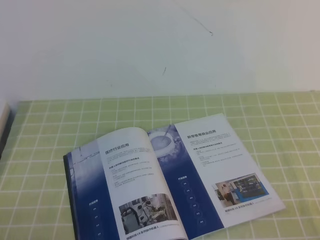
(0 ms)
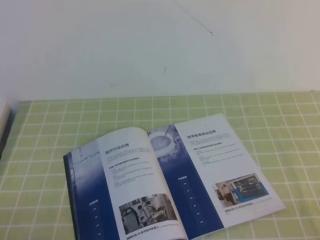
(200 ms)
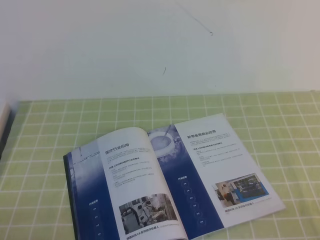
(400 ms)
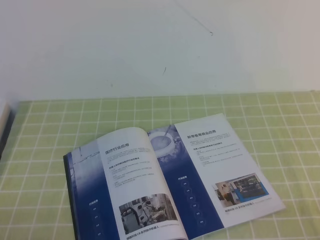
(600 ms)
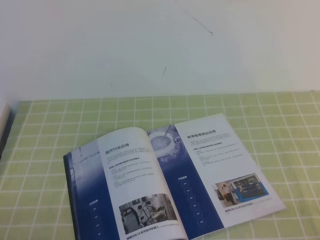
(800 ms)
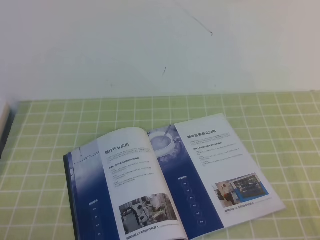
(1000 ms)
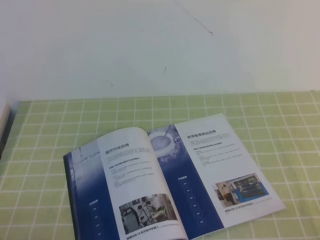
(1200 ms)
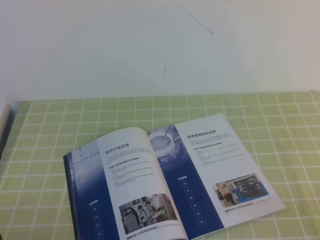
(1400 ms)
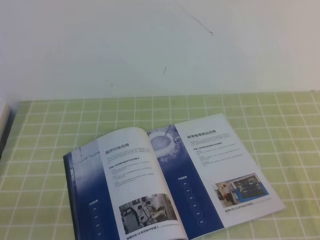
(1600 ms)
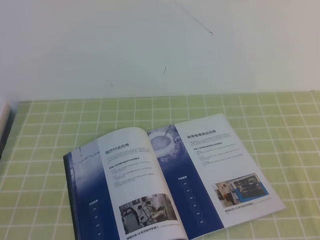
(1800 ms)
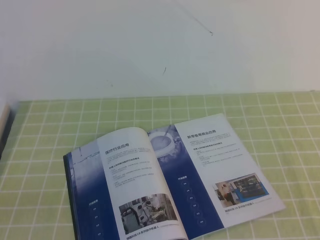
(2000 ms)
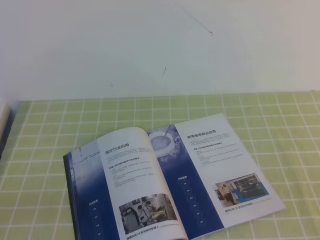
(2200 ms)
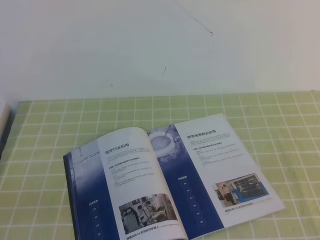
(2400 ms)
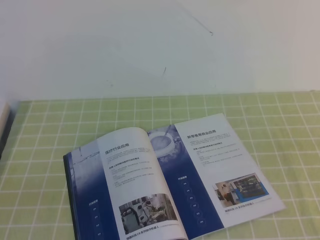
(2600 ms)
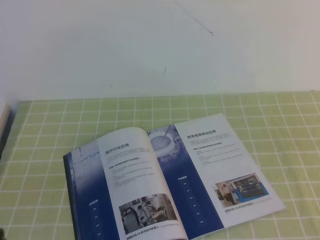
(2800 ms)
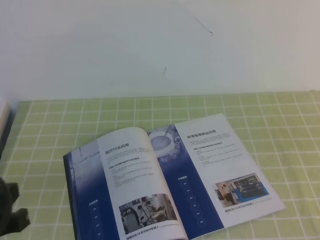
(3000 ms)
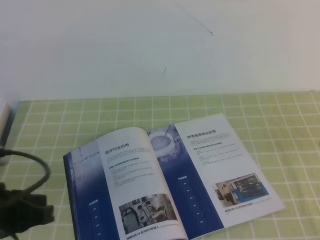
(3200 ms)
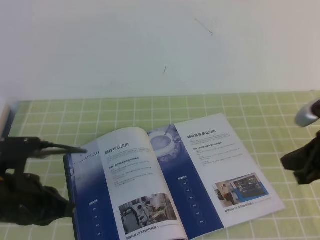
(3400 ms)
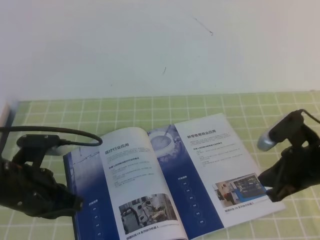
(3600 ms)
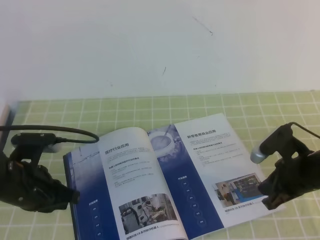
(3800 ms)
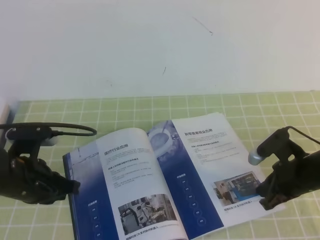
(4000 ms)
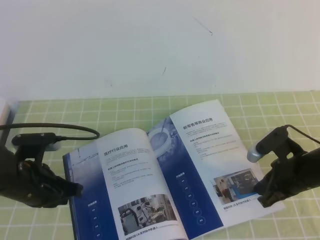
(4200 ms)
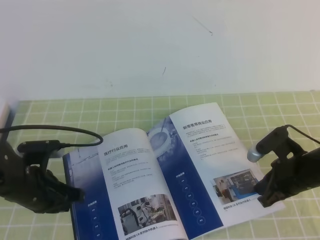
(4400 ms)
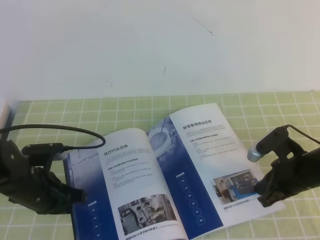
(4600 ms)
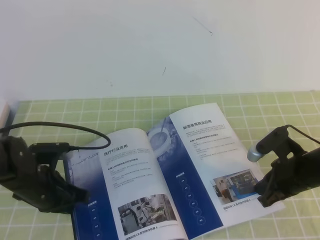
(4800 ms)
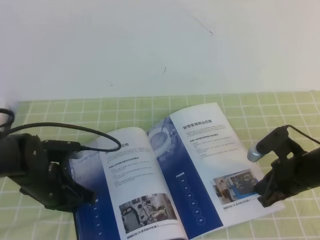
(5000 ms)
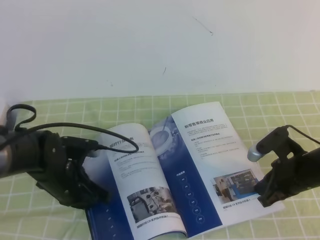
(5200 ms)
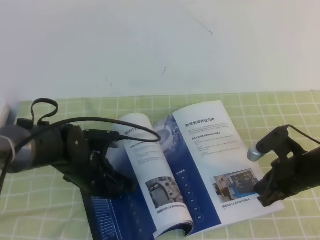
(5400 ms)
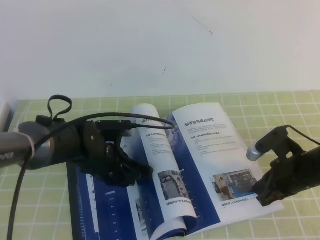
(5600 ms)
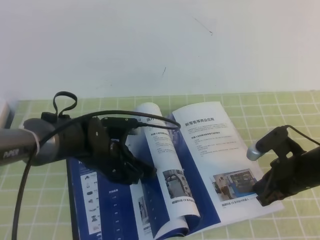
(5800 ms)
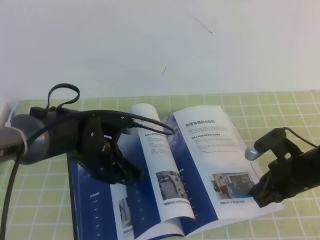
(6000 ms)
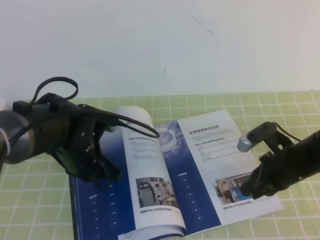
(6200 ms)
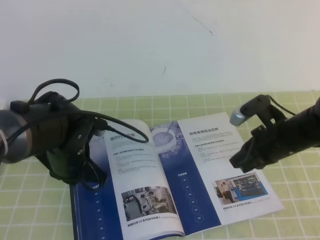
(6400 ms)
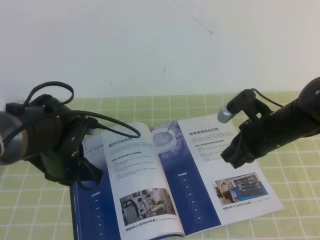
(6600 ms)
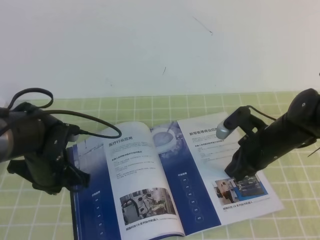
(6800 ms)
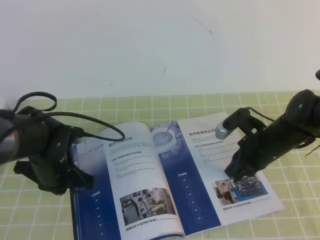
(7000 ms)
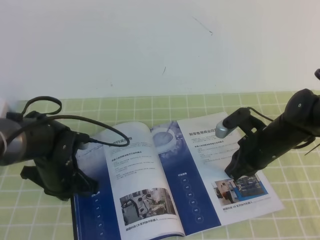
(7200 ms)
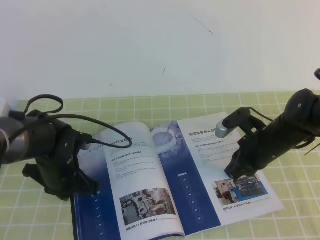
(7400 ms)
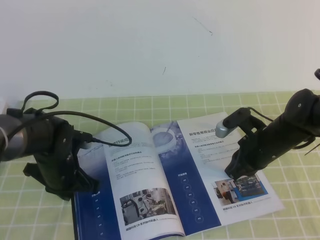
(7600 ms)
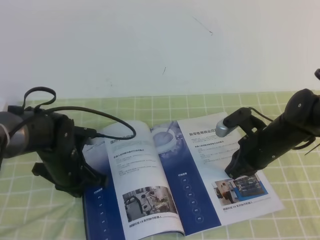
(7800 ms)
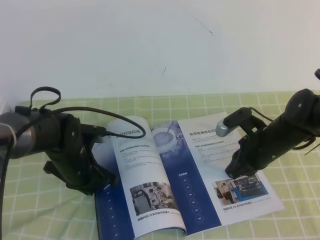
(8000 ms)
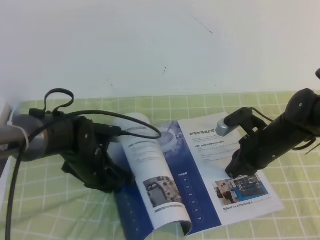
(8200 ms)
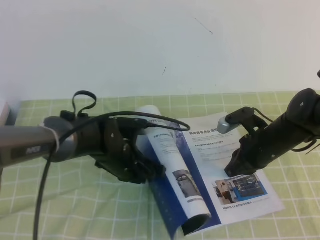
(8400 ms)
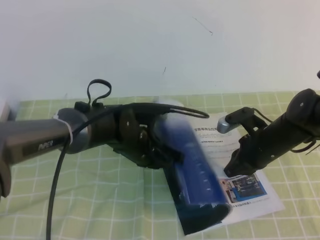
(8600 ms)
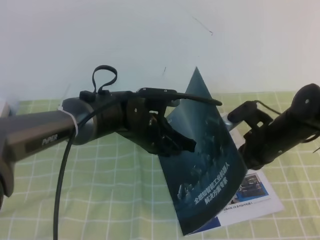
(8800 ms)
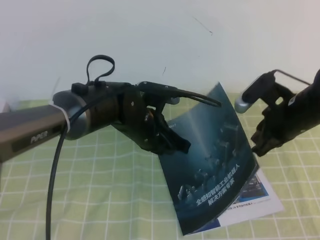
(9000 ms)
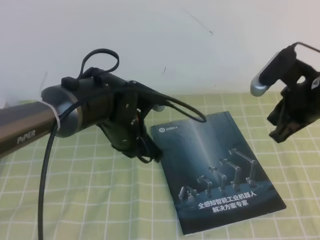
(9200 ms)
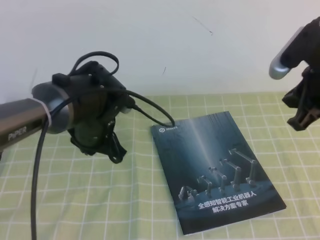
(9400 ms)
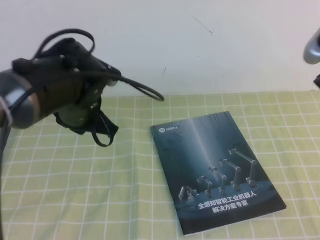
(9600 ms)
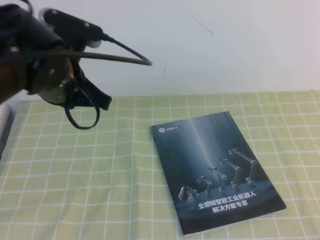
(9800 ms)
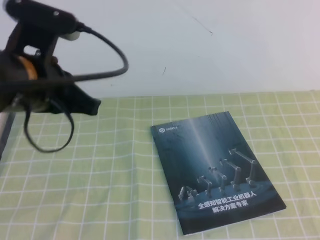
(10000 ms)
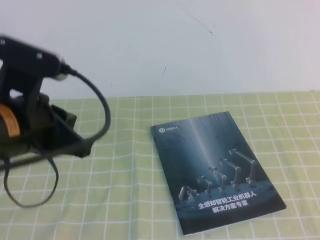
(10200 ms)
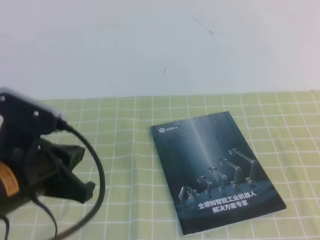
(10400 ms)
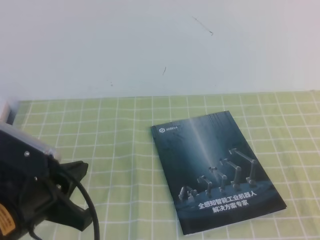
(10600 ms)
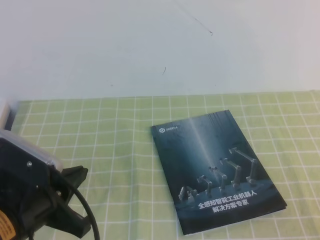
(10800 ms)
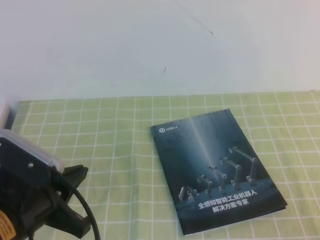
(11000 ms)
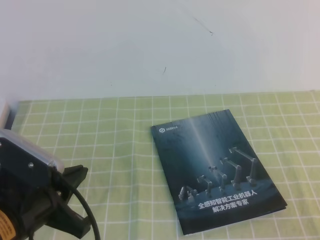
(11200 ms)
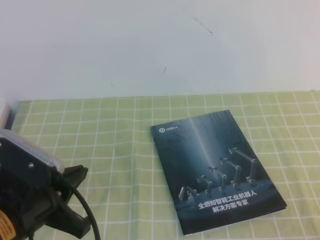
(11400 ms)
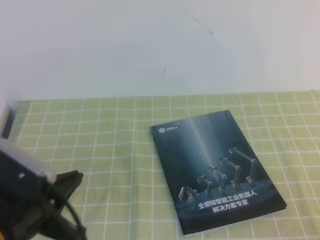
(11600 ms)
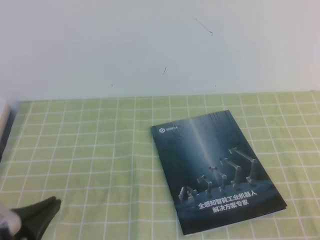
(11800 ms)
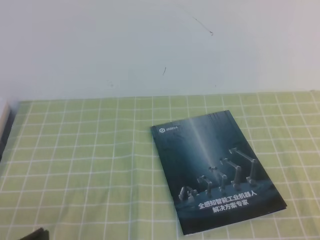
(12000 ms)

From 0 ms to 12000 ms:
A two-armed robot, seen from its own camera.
Task of the whole recording: on the green tablecloth, hold the book with one hand and close it with the other.
From 1600 ms to 3000 ms: The left gripper moves upward and forward, roughly 10 cm.
From 3000 ms to 4400 ms: The left gripper moves forward and downward, approximately 20 cm; the right gripper shifts roughly 25 cm downward and forward.
From 4400 ms to 6000 ms: The left gripper travels to the right by approximately 10 cm.
From 6000 ms to 7600 ms: The right gripper travels forward by some 5 cm. Meanwhile the left gripper shifts about 5 cm to the left.
From 7600 ms to 9000 ms: The left gripper is displaced to the right and upward by some 15 cm; the right gripper heads upward, covering approximately 10 cm.
From 9000 ms to 10400 ms: The right gripper moves backward and upward, roughly 30 cm; the left gripper heads backward, to the left and upward, covering about 25 cm.
From 10400 ms to 12000 ms: The left gripper shifts some 15 cm backward, downward and to the left, while the right gripper travels downward by some 10 cm.

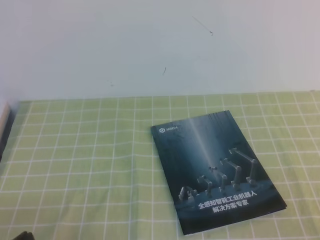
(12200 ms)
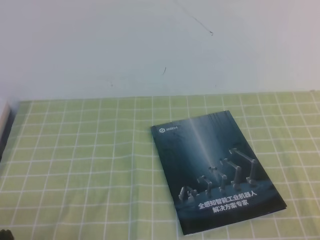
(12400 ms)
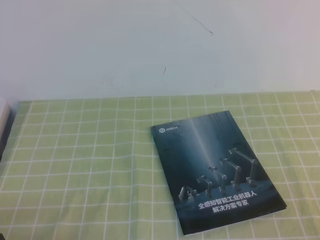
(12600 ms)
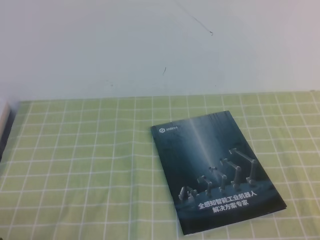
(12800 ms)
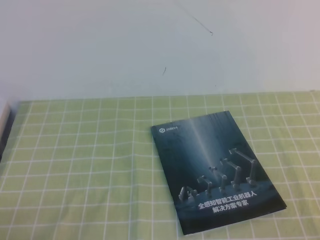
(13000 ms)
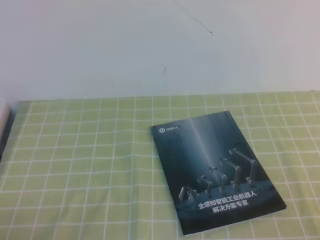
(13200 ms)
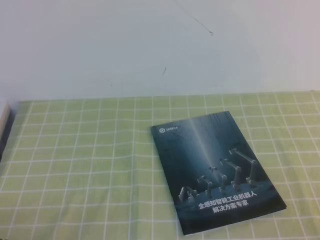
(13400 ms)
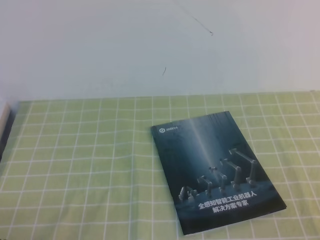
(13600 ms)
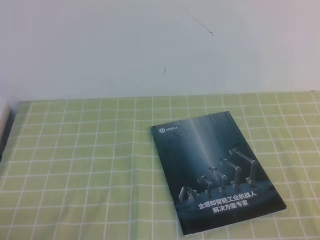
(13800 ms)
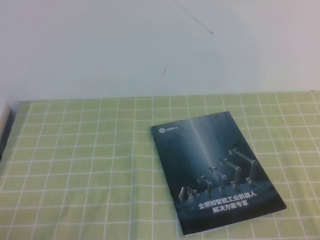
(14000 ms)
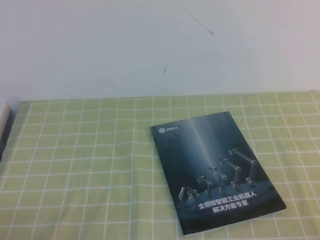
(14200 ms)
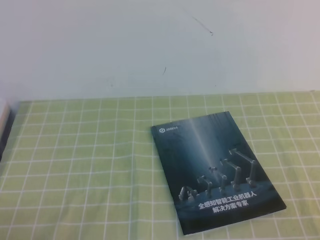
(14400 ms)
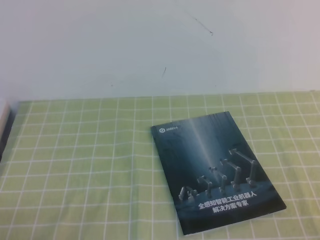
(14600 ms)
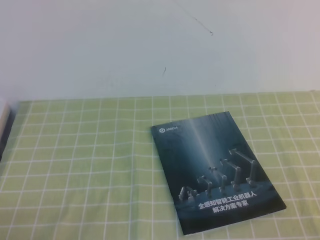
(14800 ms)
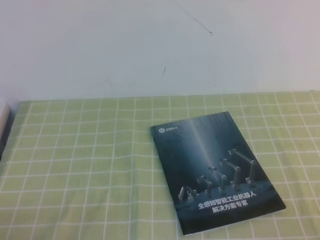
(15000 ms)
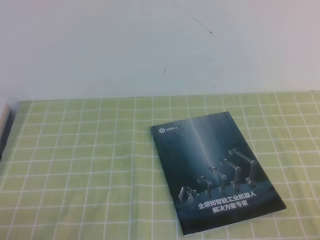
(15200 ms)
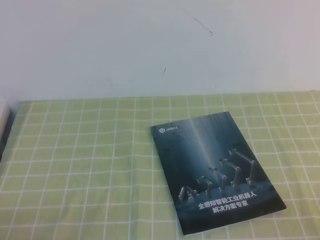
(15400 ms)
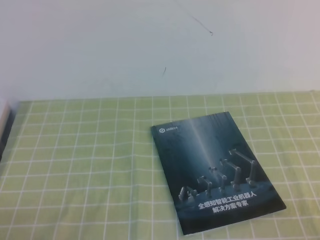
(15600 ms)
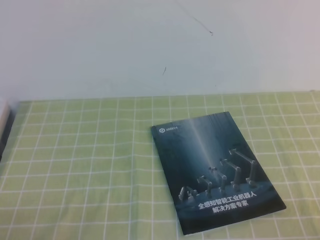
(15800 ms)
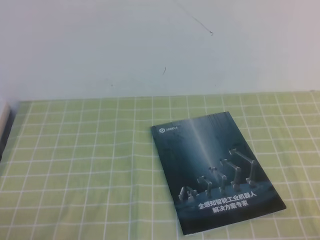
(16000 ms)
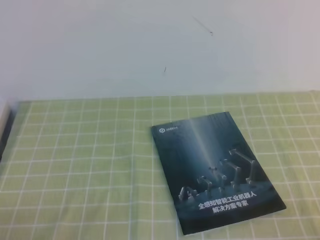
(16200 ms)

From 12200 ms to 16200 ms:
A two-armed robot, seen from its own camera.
Task of the whole recording: on the green tablecloth, hold the book with one hand and close it with the other.
From 13600 ms to 14800 ms: The two grippers keep their place.
